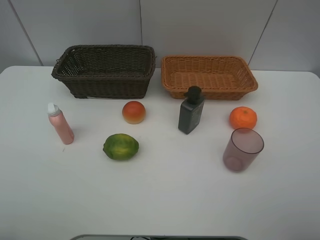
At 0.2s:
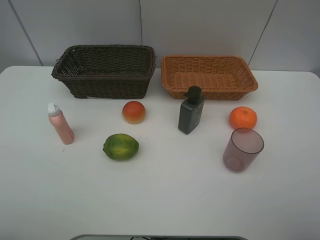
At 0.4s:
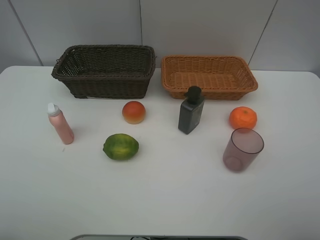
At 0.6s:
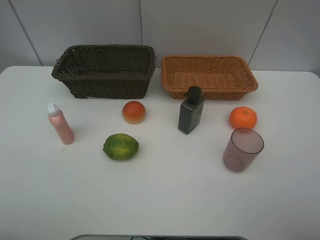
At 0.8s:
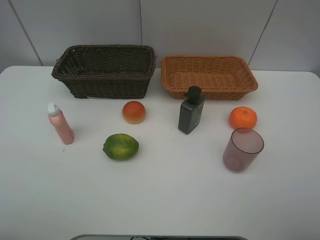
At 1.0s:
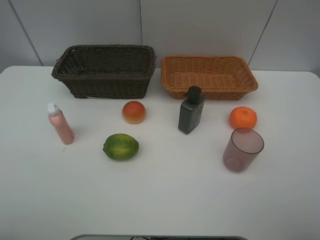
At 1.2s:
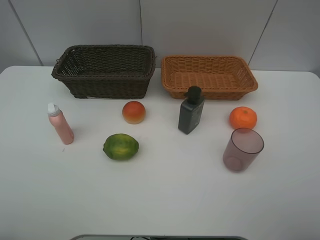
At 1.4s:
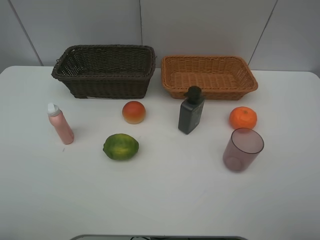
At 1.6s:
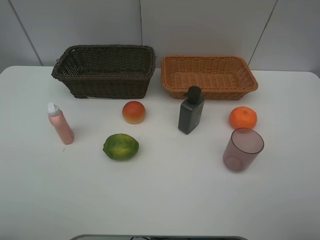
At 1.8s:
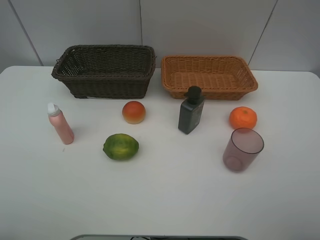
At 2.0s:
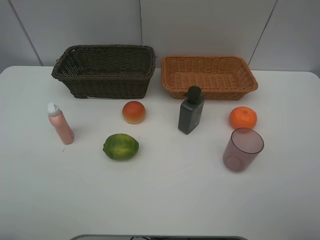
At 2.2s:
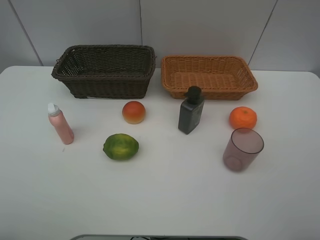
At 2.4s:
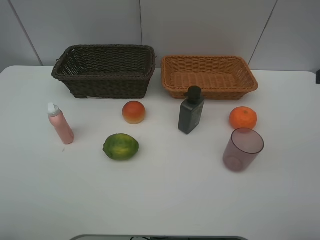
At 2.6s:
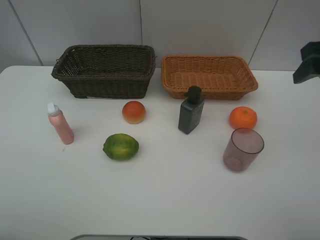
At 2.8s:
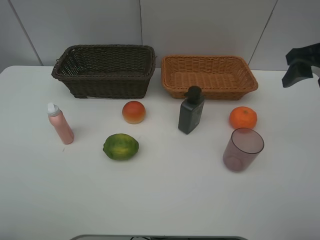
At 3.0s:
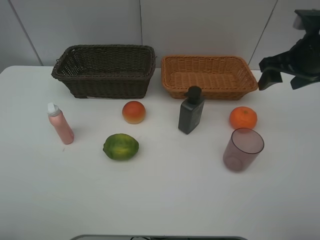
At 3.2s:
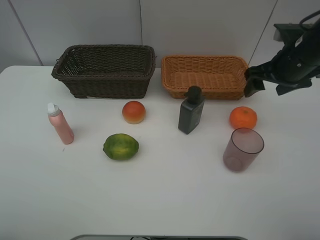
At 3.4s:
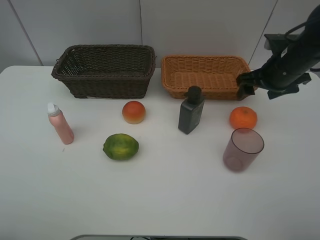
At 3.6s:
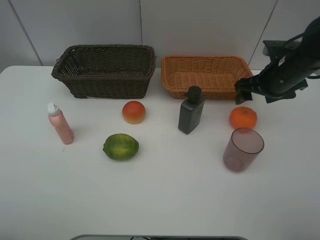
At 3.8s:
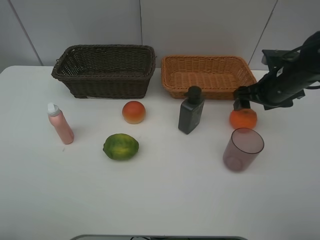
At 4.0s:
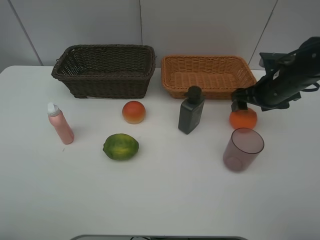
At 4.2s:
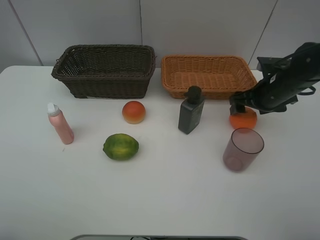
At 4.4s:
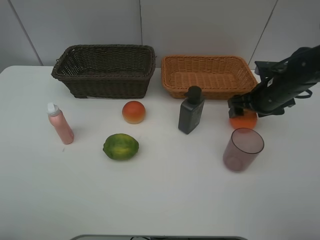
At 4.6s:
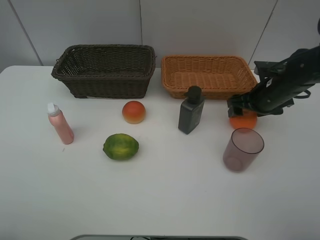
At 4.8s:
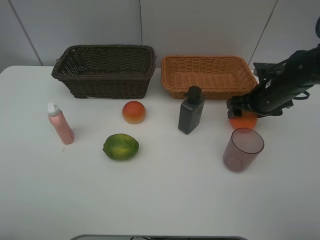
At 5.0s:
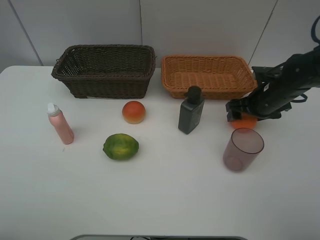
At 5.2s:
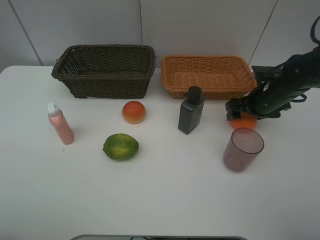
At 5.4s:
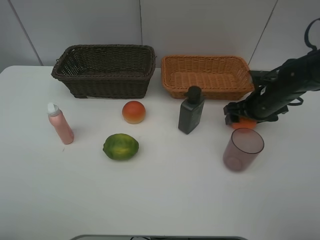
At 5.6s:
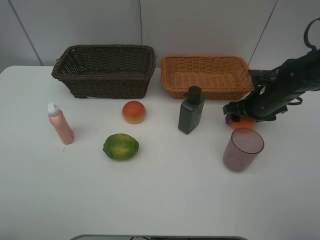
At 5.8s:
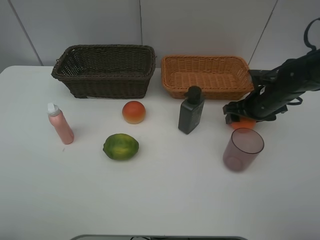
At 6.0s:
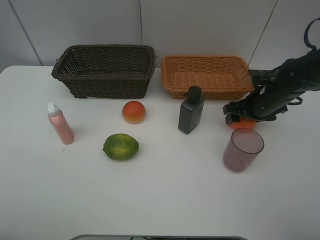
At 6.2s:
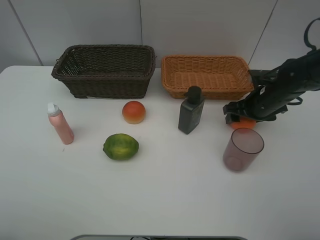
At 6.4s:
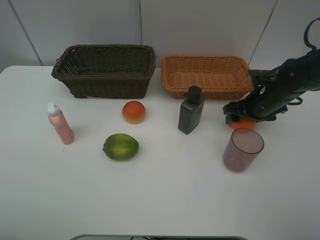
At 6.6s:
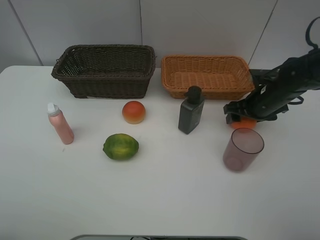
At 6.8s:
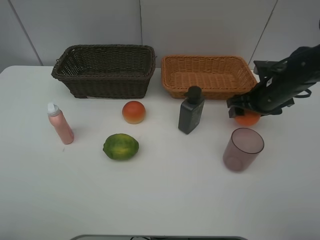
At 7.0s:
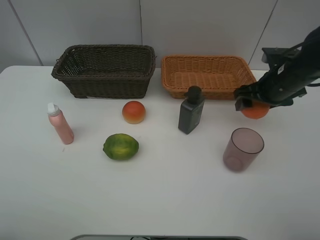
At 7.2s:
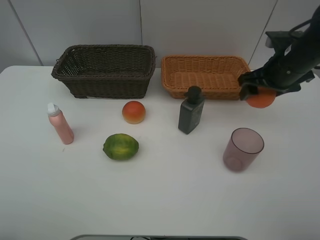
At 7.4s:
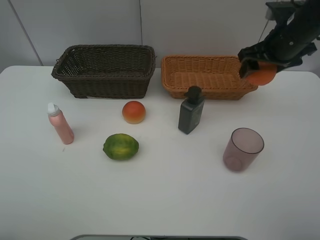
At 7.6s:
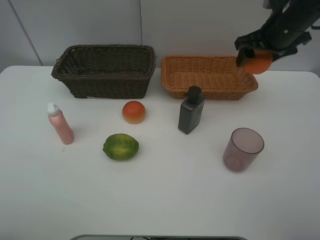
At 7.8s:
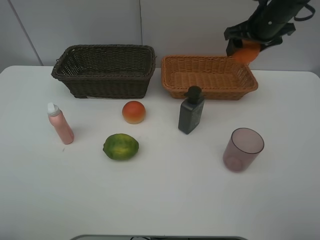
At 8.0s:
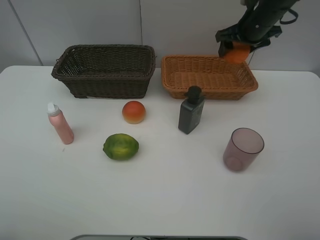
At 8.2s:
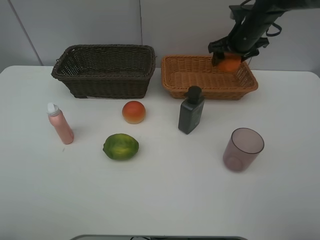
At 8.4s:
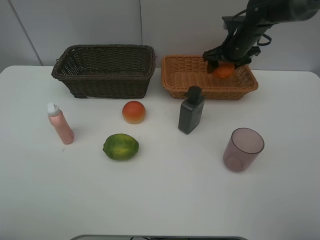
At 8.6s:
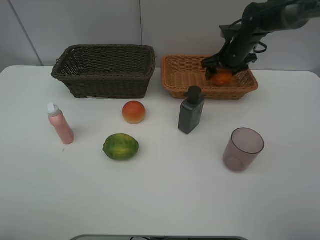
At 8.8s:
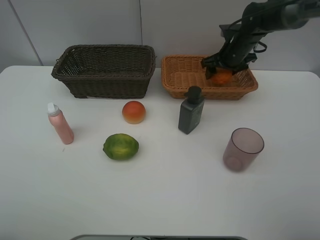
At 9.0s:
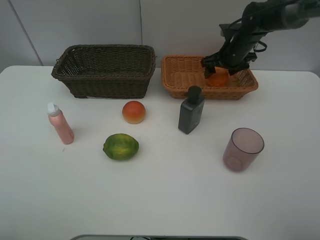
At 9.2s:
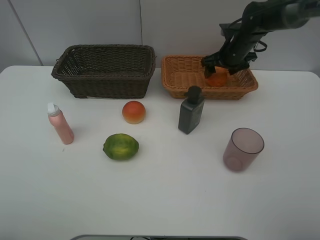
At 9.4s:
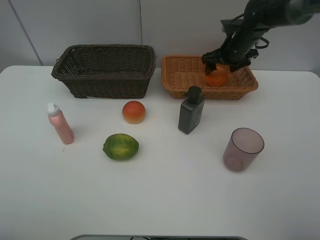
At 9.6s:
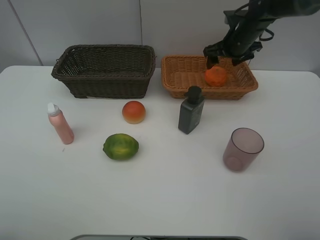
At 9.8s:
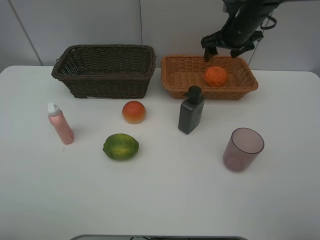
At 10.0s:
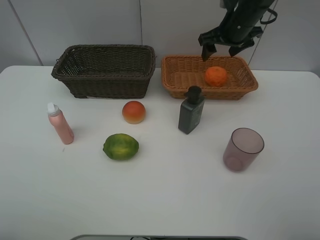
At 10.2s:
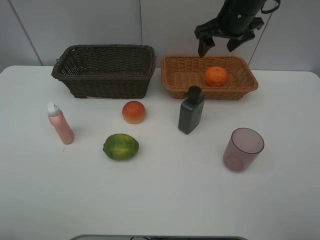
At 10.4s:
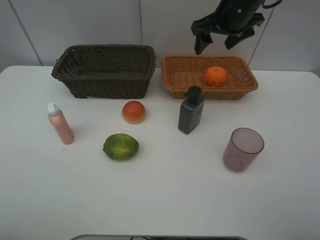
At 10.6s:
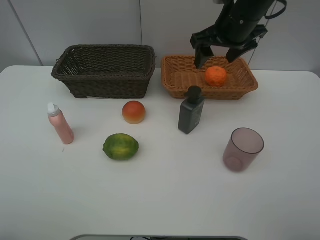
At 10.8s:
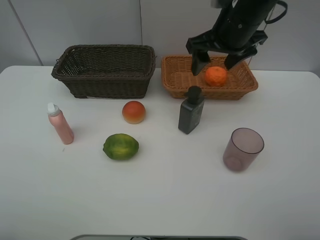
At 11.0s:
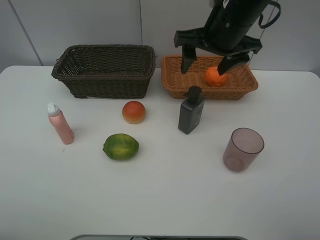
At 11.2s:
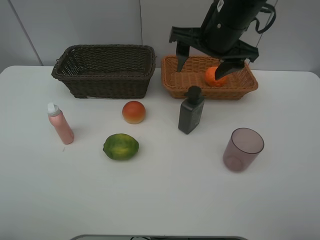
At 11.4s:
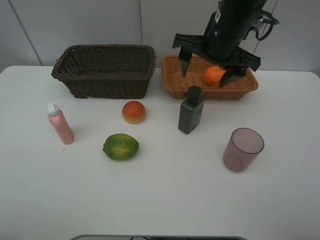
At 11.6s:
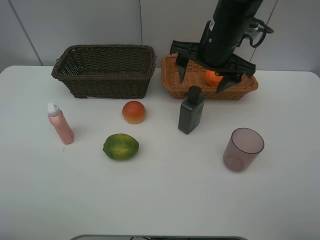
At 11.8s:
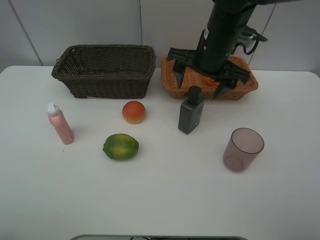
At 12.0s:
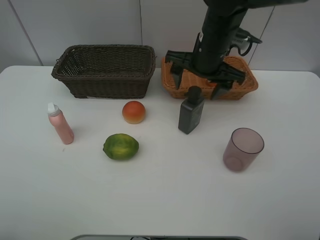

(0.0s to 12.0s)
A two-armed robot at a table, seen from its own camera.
Task of the whole recording: place multiple objects separately in different baskets.
0.0s - 1.6s: The two grippers keep their place.
1.6s - 3.0s: The right gripper moves forward, some 30 cm.
3.0s - 4.4s: The right gripper moves downward, approximately 10 cm.
4.4s - 6.0s: The grippers move only a little.
6.0s - 7.6s: The right gripper shifts some 15 cm upward.
7.6s - 9.0s: The right gripper goes roughly 15 cm downward and forward.
9.0s - 10.4s: The right gripper goes about 15 cm upward, backward and to the left.
10.4s - 12.0s: The right gripper heads downward and to the left, covering some 10 cm.

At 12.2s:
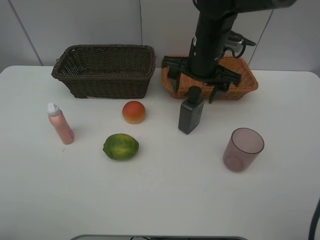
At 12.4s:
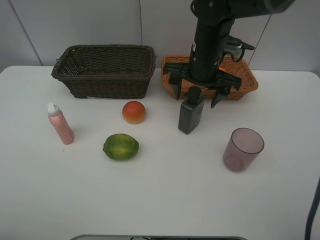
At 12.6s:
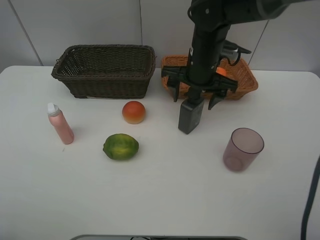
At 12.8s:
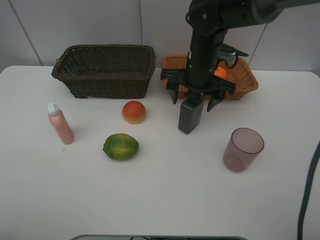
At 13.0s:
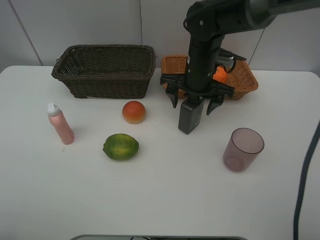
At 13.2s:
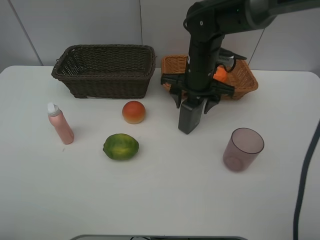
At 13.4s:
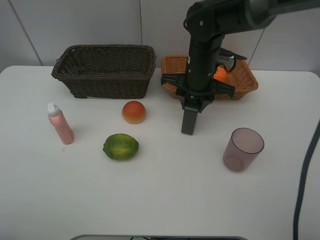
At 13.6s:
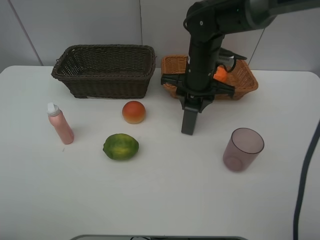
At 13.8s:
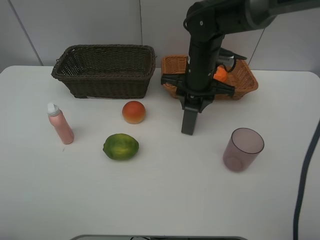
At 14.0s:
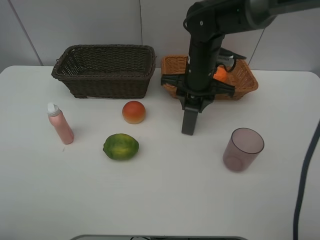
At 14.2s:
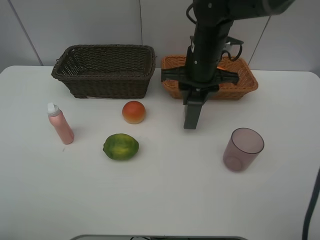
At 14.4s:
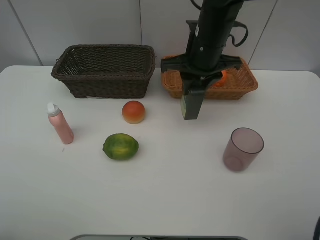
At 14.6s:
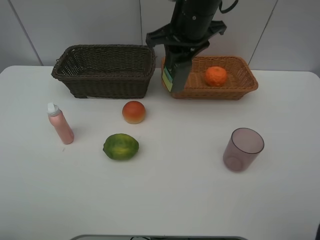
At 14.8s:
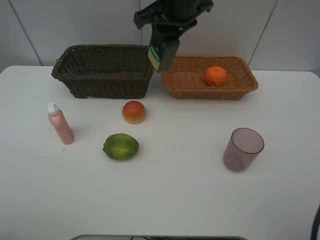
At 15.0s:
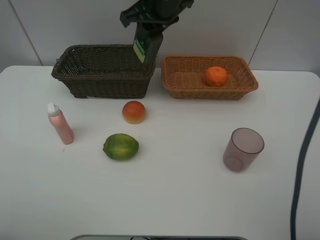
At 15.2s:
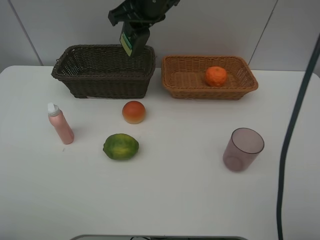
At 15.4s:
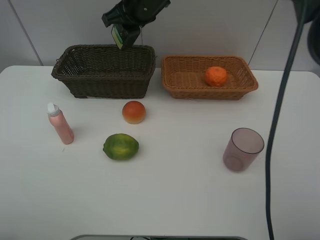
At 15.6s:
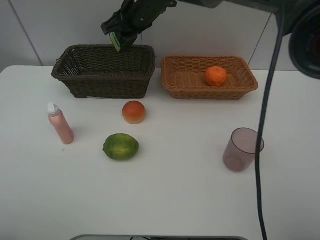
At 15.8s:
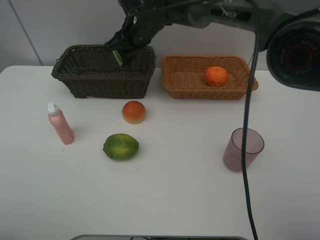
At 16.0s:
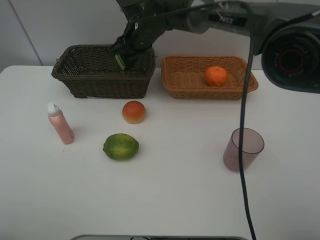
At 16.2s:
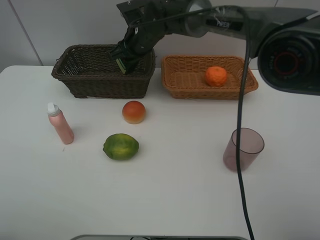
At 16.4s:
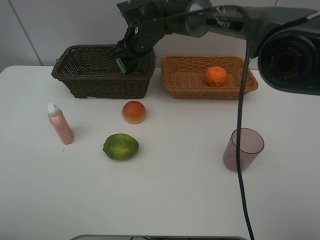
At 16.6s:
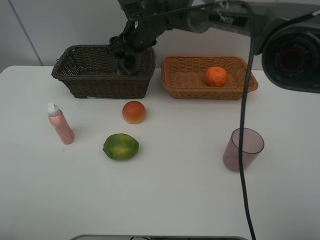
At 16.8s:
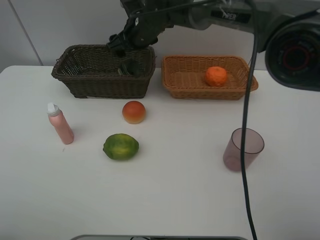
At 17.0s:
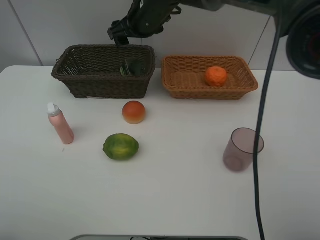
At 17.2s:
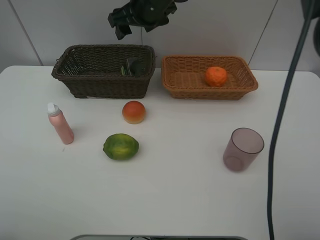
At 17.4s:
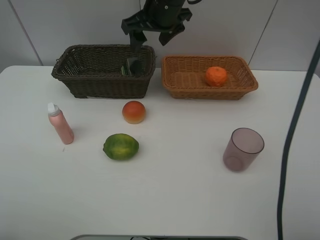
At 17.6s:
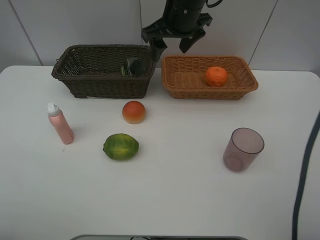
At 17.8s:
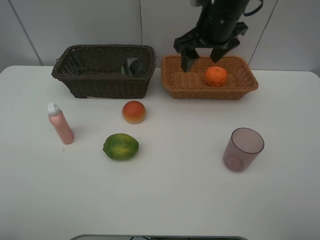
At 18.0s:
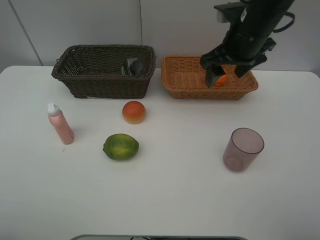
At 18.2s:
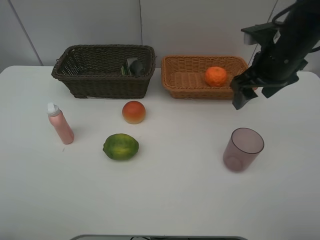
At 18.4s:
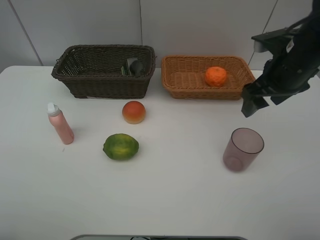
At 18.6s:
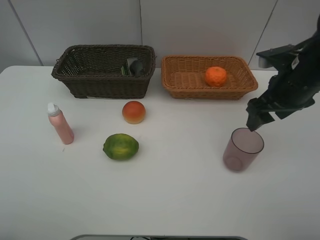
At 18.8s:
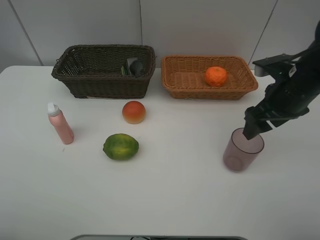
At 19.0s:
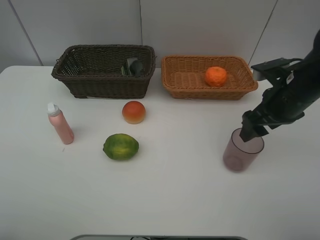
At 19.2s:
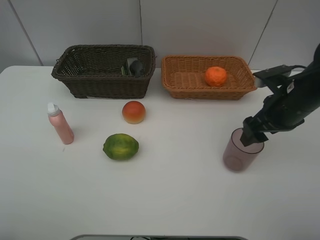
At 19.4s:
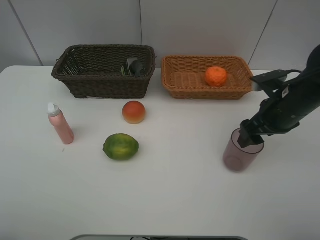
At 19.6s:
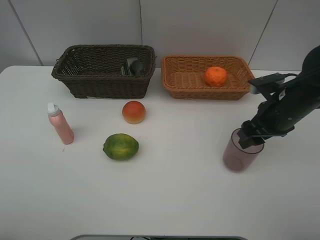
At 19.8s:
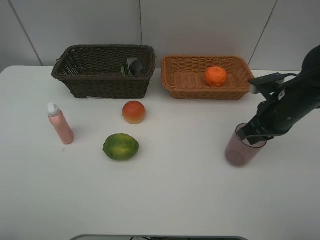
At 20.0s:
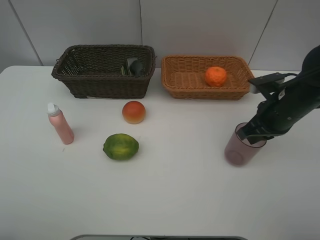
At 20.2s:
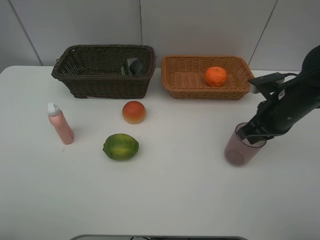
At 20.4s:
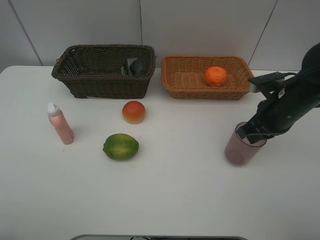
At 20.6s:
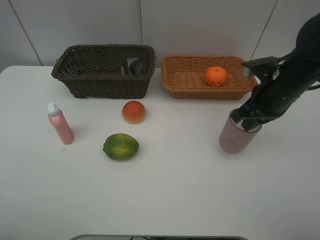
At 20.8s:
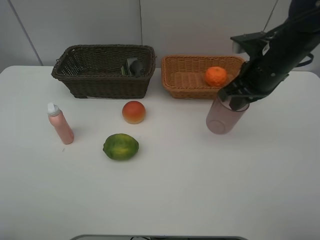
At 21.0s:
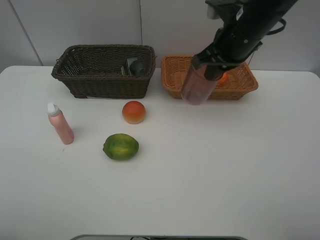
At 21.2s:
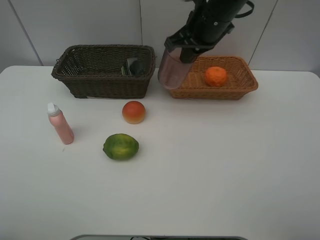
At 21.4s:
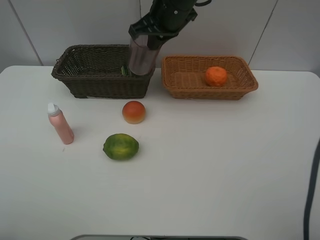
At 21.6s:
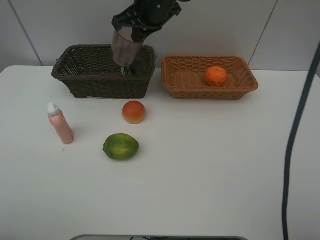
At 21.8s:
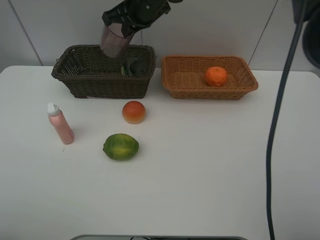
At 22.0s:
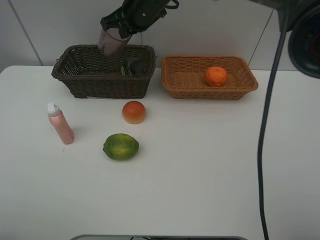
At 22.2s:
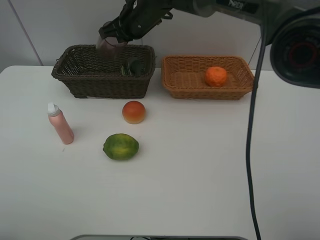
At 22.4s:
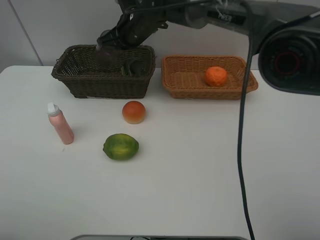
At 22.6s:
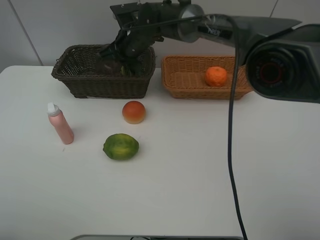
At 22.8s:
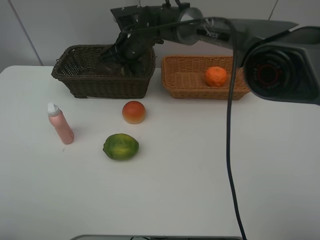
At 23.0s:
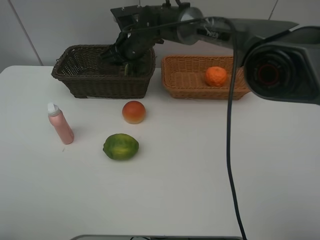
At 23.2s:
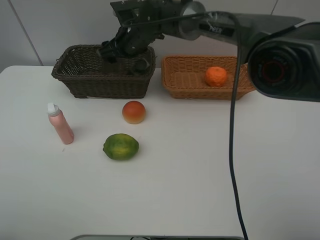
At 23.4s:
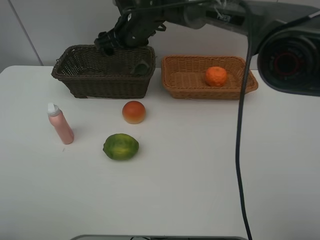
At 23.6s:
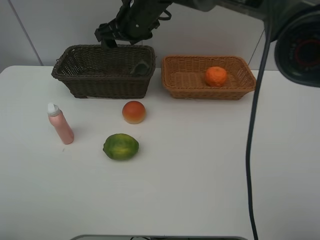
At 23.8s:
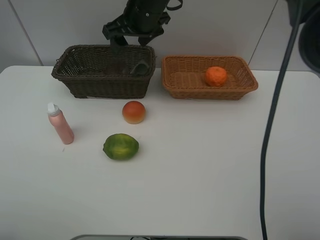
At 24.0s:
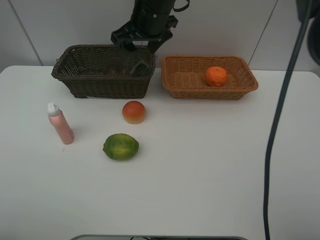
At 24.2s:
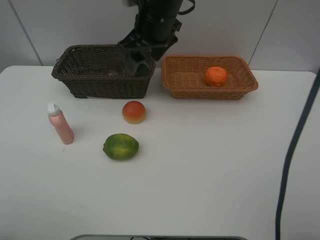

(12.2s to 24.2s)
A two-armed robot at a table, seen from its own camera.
Task of the whole recording: place multiple objects separately in different baskets.
12.2s - 13.8s: The right gripper closes.
13.8s - 15.2s: The right gripper moves upward, to the left and forward, about 15 cm.
15.2s - 16.6s: The right gripper moves downward, approximately 10 cm, and opens up.
16.6s - 18.2s: The right gripper is displaced to the right and backward by about 30 cm.
18.2s - 19.8s: The right gripper moves downward, some 10 cm, and closes its fingers.
19.8s - 21.2s: The right gripper goes approximately 20 cm to the left, upward and forward.
21.2s - 22.6s: The right gripper goes roughly 20 cm to the left, downward and forward.
22.6s - 24.2s: The right gripper is displaced upward, backward and to the right by roughly 15 cm, and opens.
